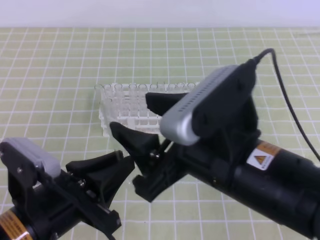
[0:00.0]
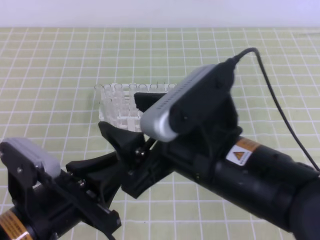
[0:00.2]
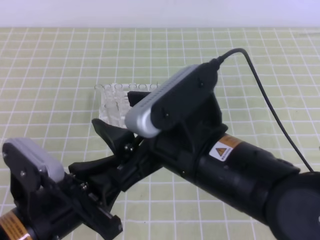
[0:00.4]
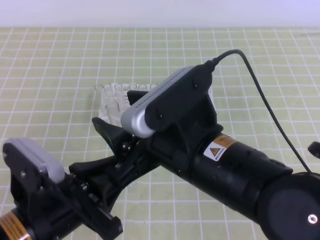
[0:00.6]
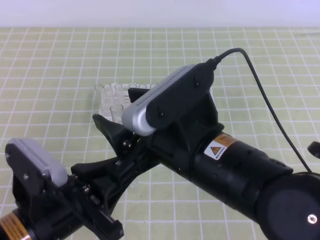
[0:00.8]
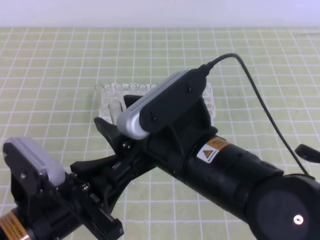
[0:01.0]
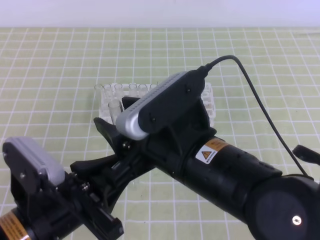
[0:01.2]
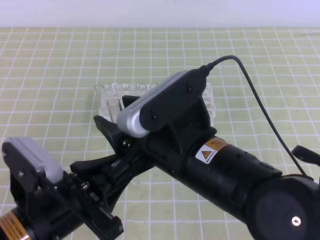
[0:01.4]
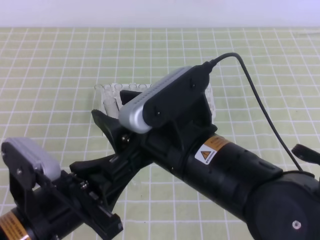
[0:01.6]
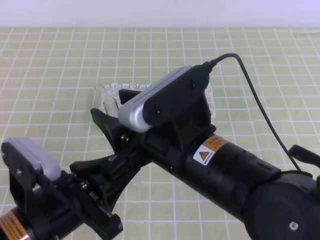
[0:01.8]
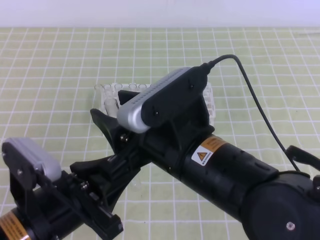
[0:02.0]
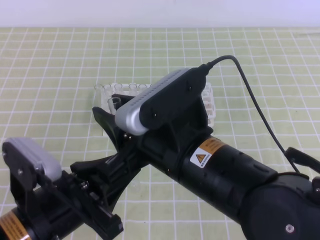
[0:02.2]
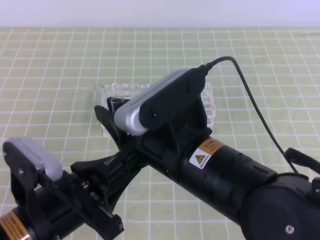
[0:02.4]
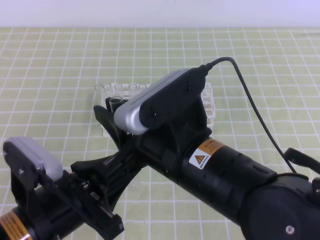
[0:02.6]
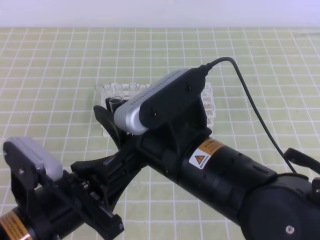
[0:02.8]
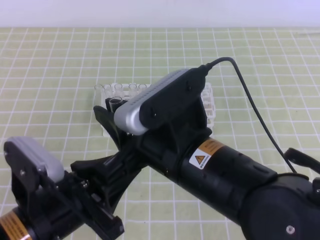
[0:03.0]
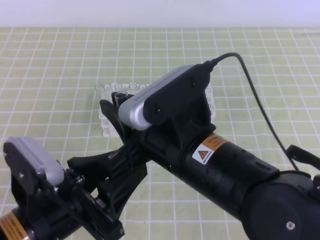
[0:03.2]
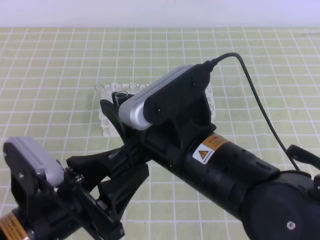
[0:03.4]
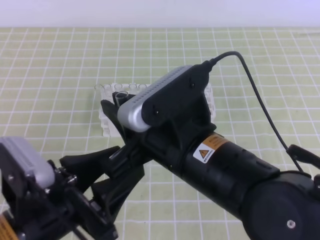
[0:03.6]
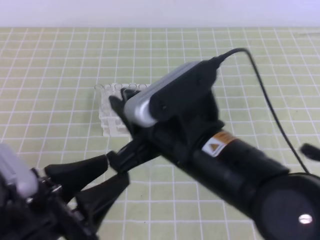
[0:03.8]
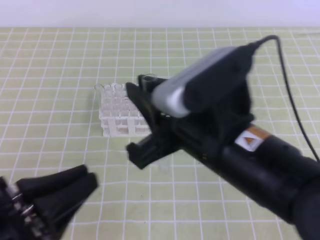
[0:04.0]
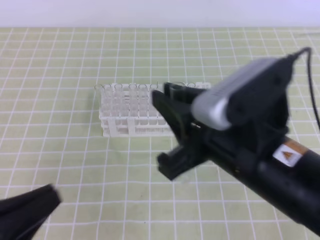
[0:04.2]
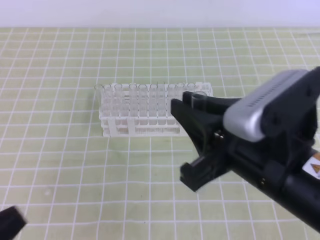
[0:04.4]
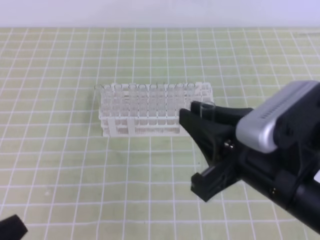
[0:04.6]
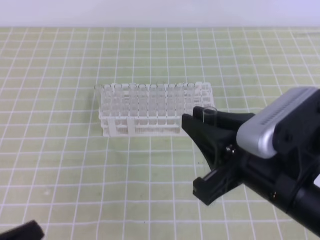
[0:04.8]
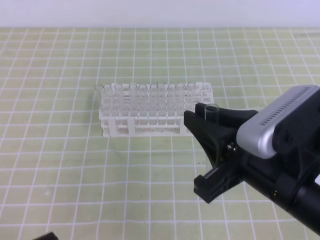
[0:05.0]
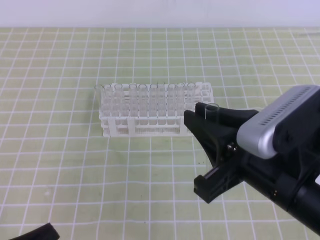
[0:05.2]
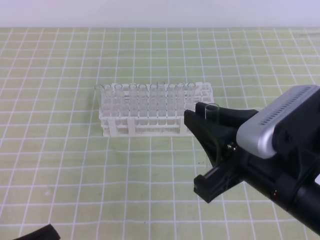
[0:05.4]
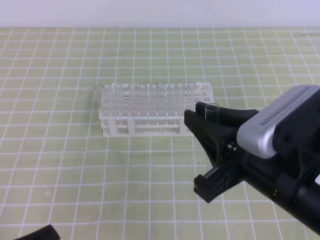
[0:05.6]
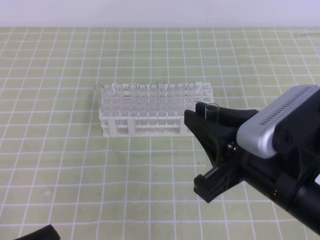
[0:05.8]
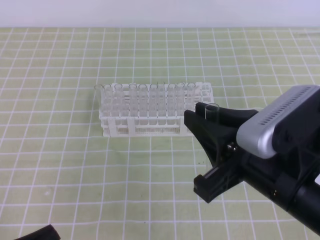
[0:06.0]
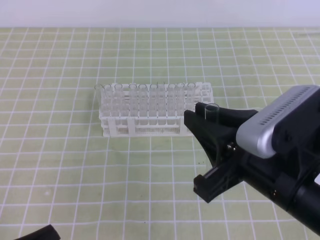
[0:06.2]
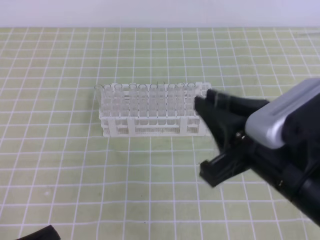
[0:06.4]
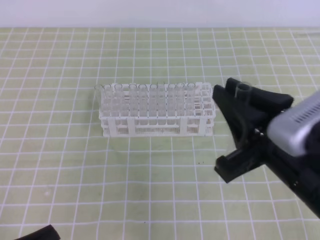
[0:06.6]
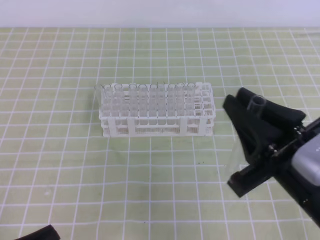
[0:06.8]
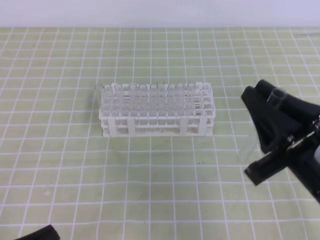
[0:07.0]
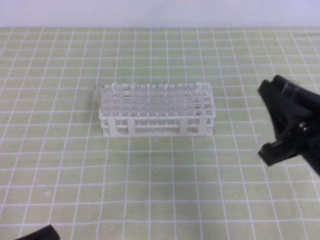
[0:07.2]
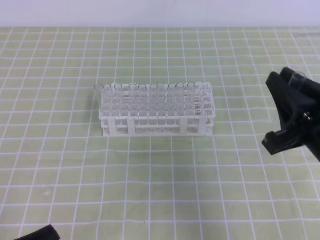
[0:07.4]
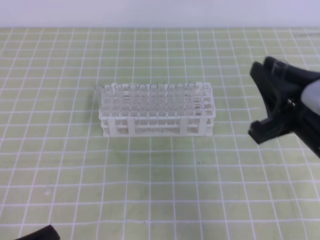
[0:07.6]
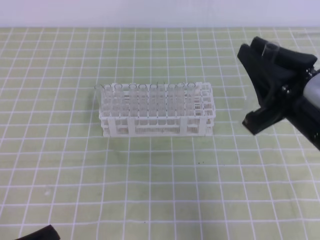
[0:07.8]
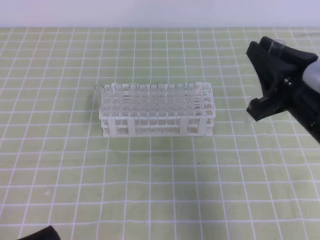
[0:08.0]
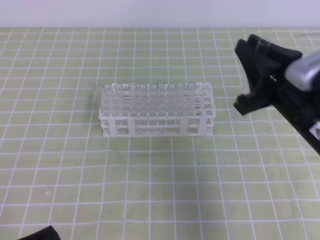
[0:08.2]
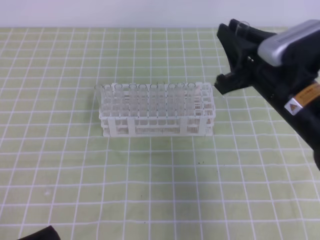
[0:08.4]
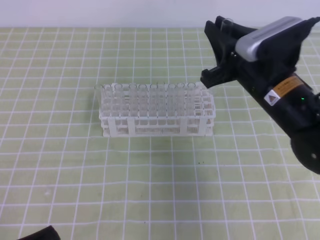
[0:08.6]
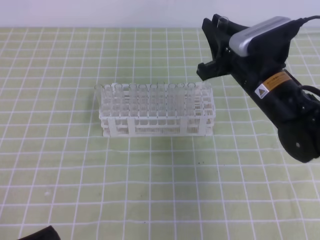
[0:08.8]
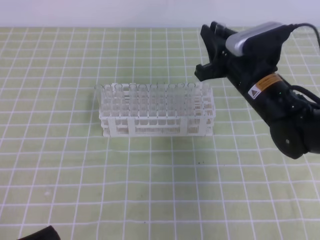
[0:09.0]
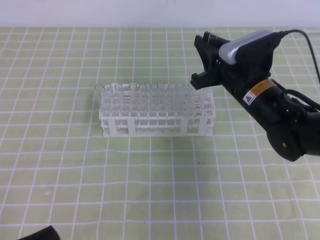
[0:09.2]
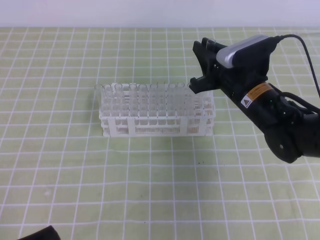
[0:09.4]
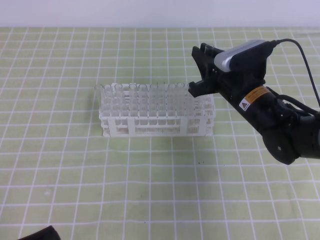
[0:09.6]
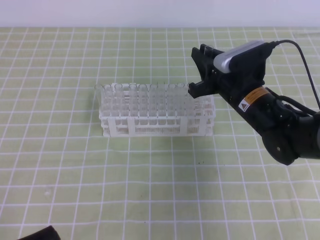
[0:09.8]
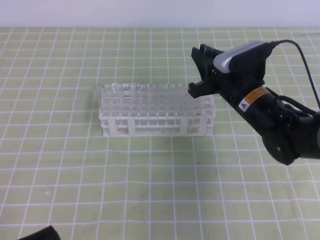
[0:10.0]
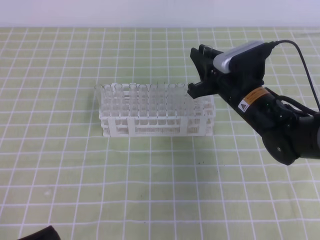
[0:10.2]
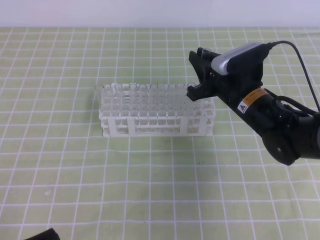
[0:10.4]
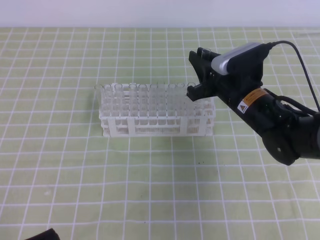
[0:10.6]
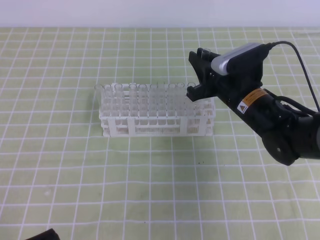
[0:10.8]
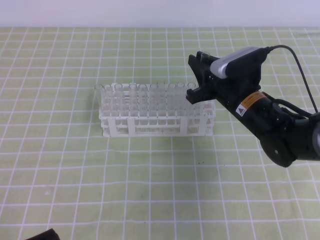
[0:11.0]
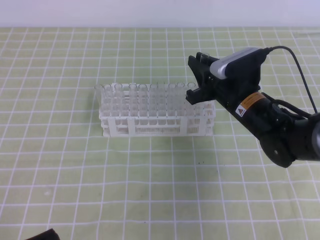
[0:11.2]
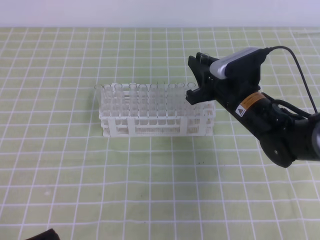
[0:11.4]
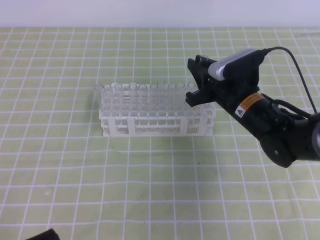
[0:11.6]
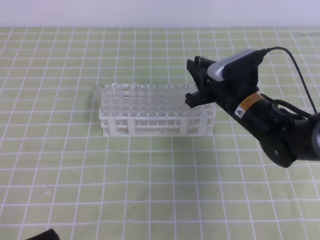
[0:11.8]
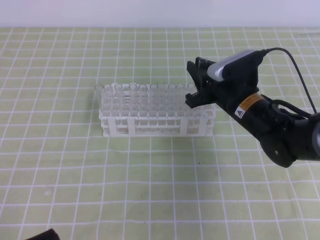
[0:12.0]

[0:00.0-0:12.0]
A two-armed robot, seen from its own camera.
0:01.6 to 0:03.0: The right gripper closes up.
0:03.0 to 0:04.4: The right gripper shifts approximately 5 cm to the right. Meanwhile the left gripper shifts roughly 15 cm to the left and backward, and closes up.
0:04.4 to 0:06.0: The left gripper is displaced downward by some 5 cm.
0:06.0 to 0:07.6: The right gripper goes about 5 cm to the right.
0:07.6 to 0:09.0: The right gripper travels forward by some 15 cm.
0:09.0 to 0:12.0: The grippers stay close to where they were, moving slightly.

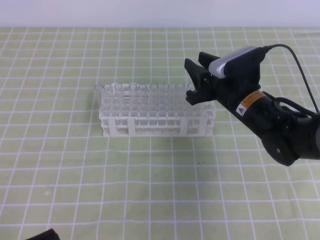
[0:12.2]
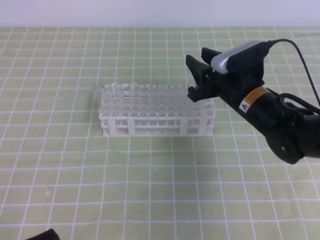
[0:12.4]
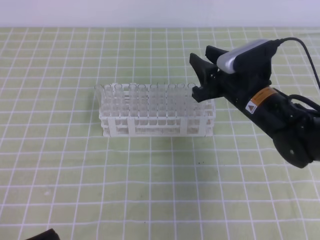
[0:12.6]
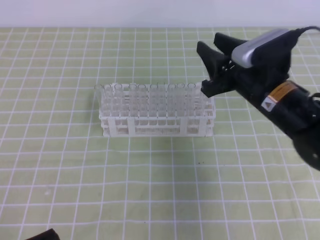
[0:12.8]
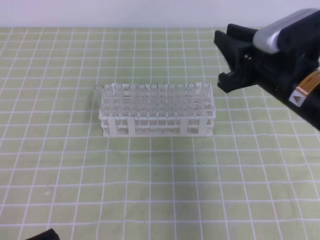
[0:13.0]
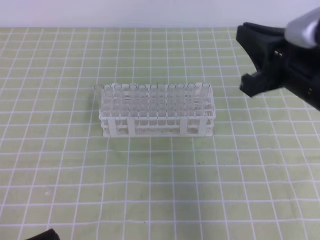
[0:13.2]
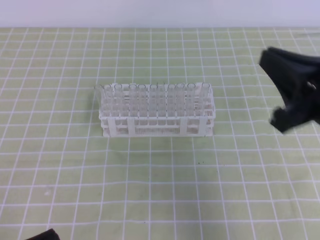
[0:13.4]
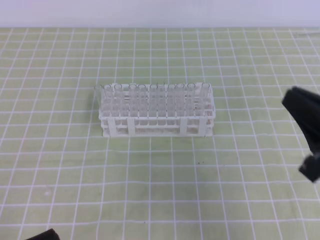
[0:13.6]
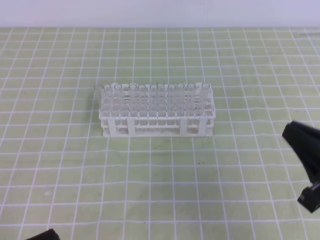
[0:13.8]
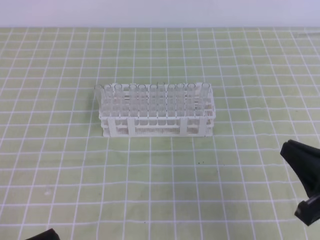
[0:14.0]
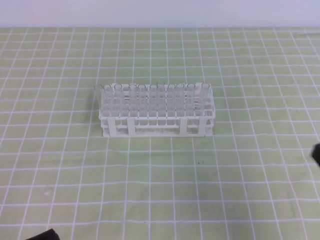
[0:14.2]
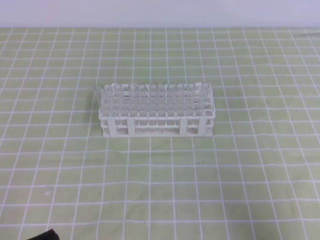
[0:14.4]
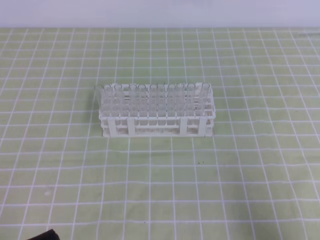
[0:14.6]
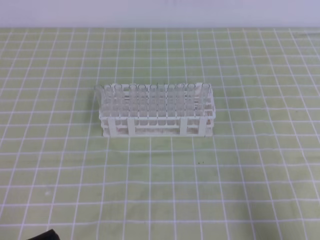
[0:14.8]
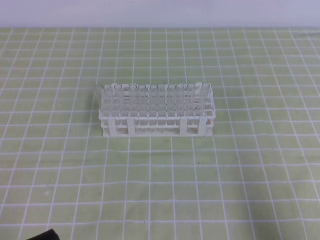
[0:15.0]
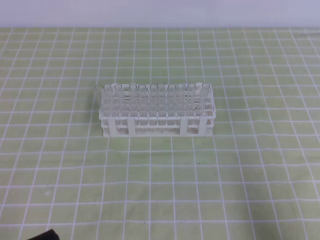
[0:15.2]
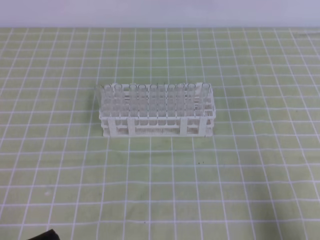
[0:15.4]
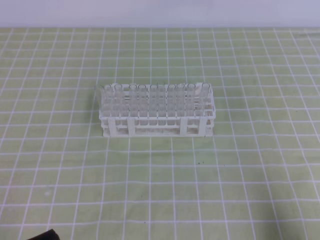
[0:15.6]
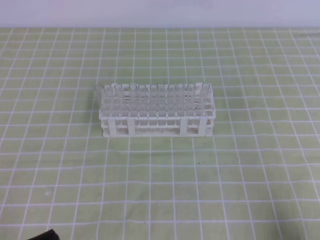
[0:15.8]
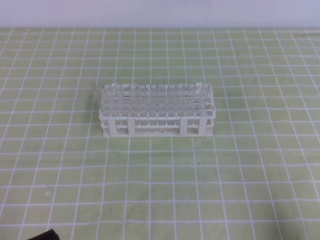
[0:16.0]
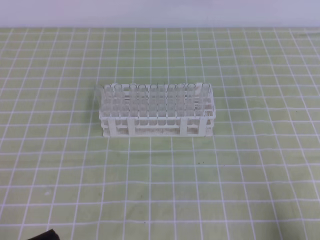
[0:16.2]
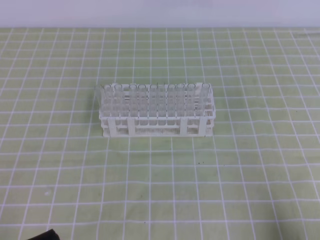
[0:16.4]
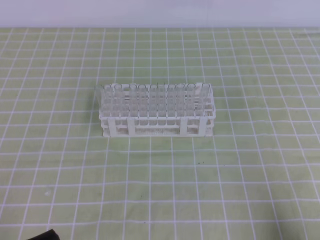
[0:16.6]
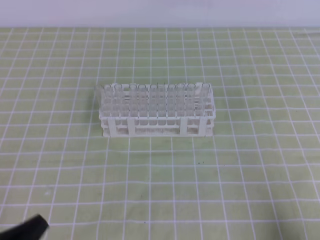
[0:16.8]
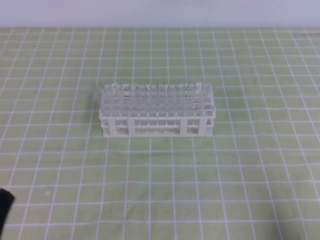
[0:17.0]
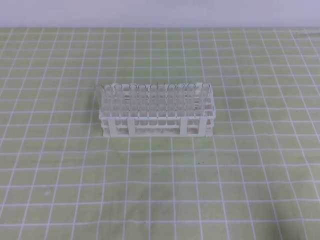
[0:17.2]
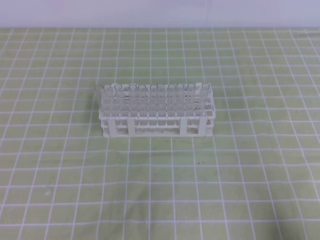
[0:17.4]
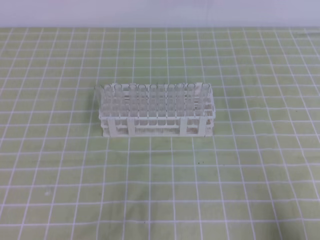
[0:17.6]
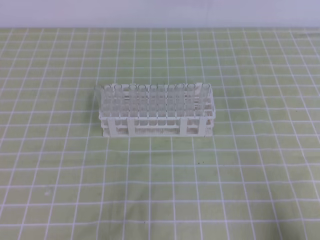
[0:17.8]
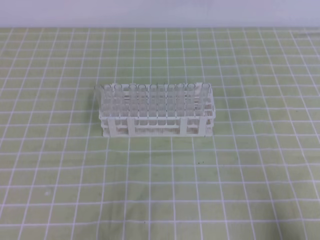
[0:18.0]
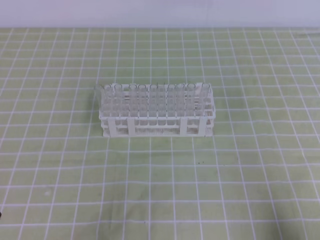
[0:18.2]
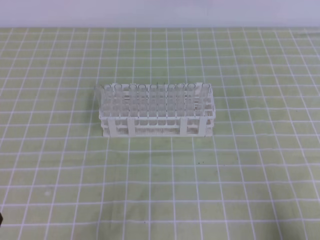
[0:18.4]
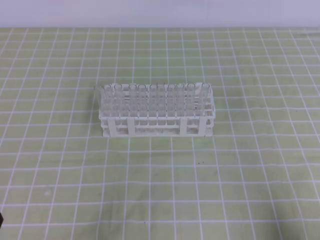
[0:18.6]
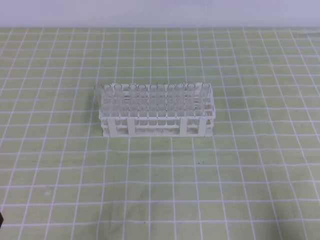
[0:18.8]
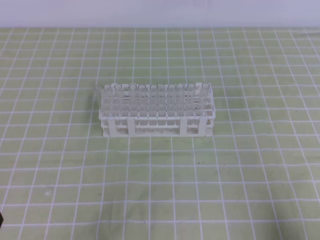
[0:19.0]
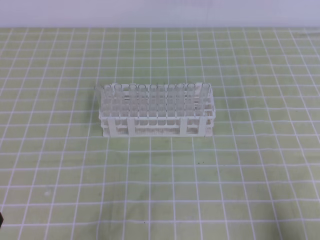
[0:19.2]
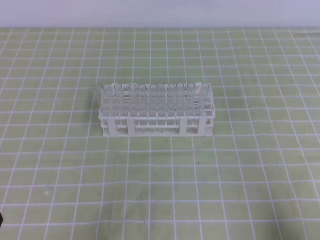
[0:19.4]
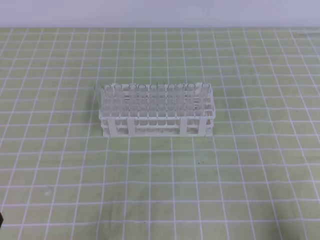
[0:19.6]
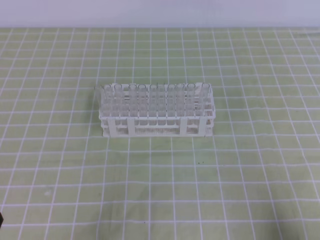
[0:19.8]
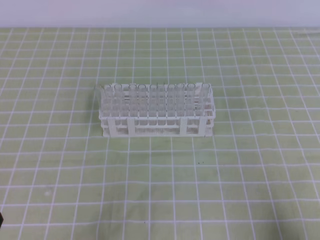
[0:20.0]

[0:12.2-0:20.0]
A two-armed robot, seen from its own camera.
0:12.2 to 0:13.8: The right gripper moves backward and to the right, about 25 cm, and closes its fingers.
0:13.8 to 0:15.4: The right gripper goes some 15 cm backward, to the right and downward.
0:15.4 to 0:16.8: The grippers make only small movements.
0:18.4 to 0:20.0: Both grippers stay about where they are.

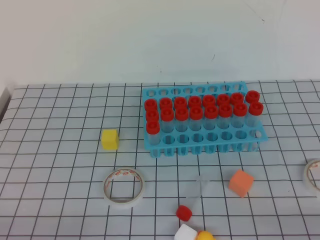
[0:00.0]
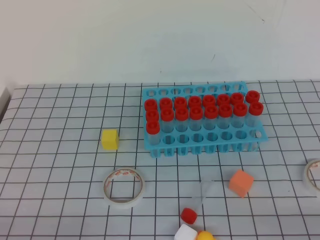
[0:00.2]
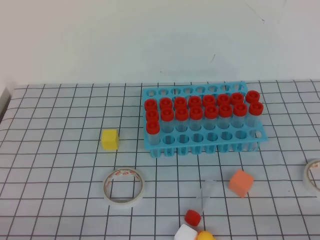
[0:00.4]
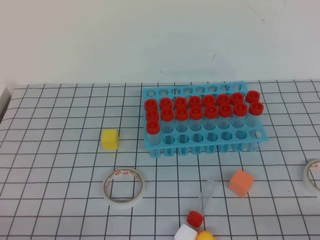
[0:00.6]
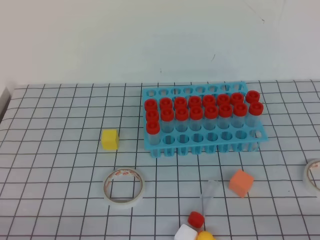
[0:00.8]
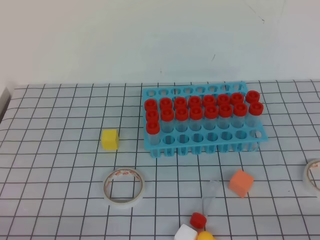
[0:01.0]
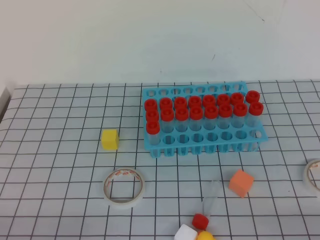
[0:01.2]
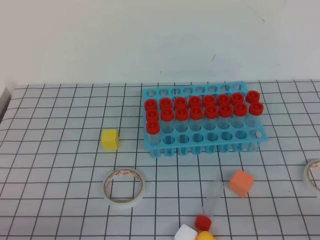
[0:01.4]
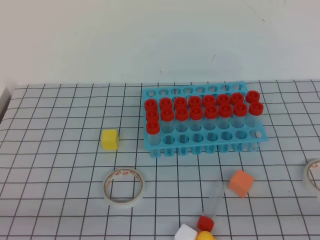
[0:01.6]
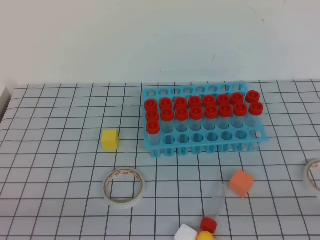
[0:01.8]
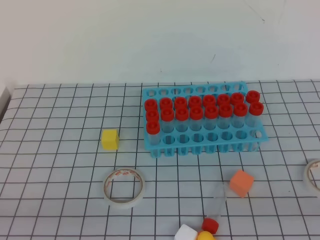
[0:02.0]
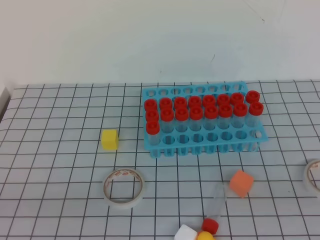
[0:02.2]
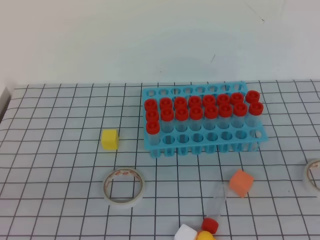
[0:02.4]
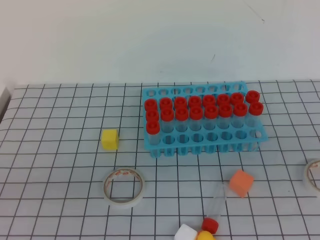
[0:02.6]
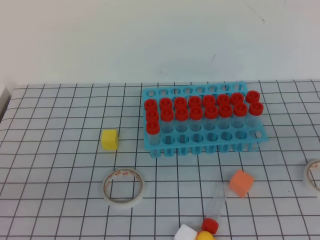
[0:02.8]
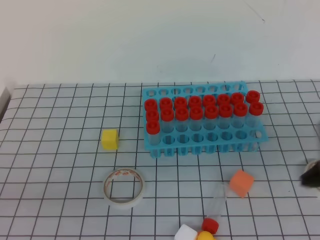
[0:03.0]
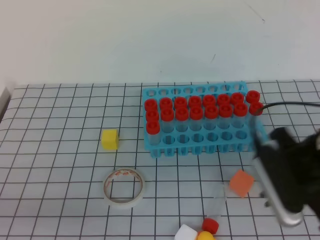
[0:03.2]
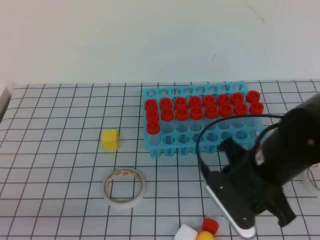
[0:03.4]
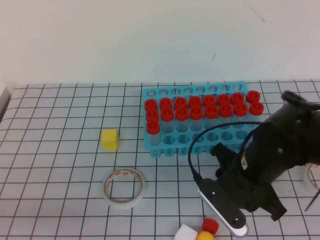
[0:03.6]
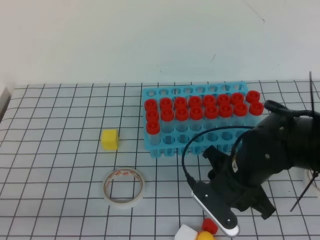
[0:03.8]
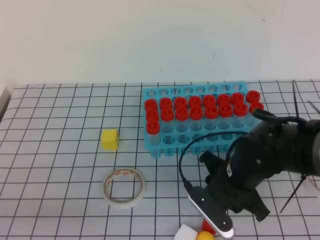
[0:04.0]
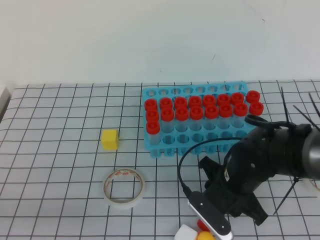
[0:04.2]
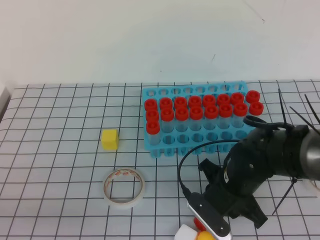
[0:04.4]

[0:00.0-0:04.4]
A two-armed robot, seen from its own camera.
0:01.4 to 0:03.0: The right gripper heads upward and forward, covering some 20 cm.
0:03.0 to 0:04.4: The right gripper moves downward, to the left and forward, roughly 30 cm, and opens its fingers.
